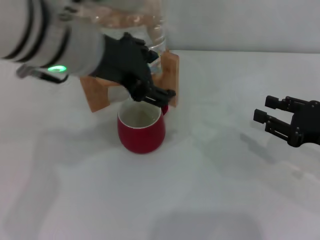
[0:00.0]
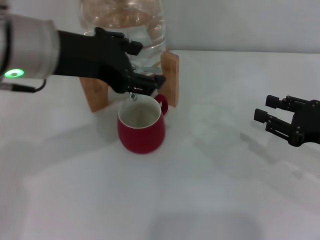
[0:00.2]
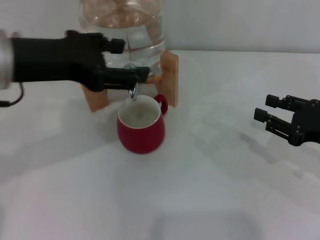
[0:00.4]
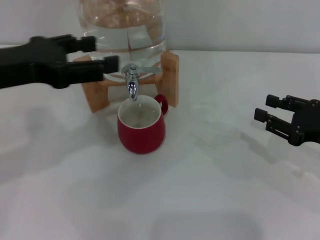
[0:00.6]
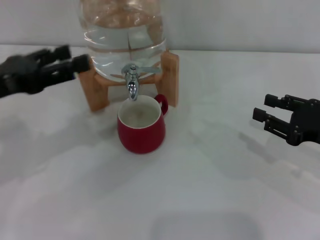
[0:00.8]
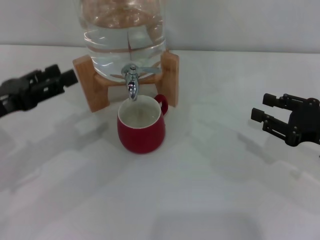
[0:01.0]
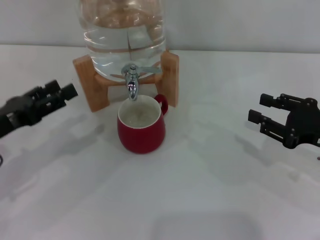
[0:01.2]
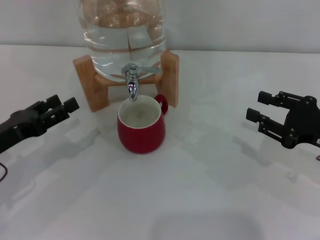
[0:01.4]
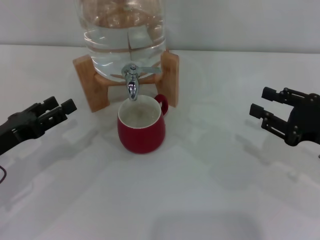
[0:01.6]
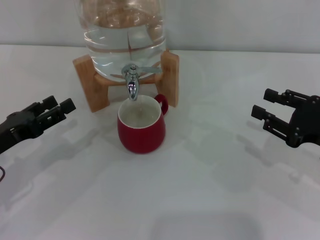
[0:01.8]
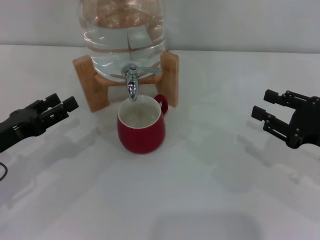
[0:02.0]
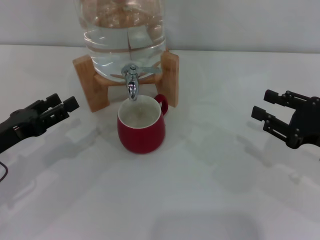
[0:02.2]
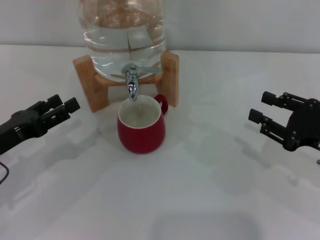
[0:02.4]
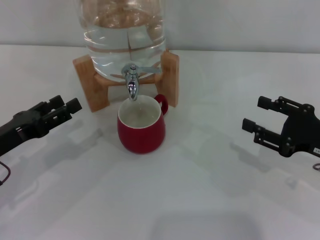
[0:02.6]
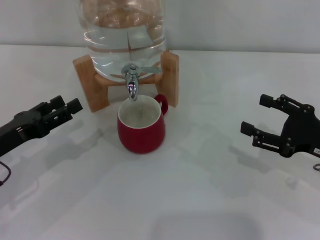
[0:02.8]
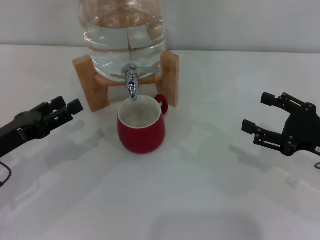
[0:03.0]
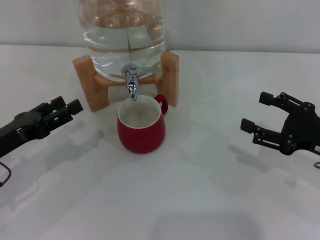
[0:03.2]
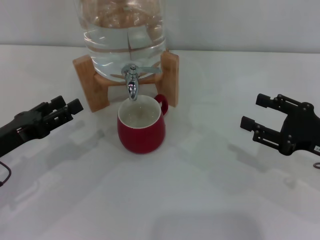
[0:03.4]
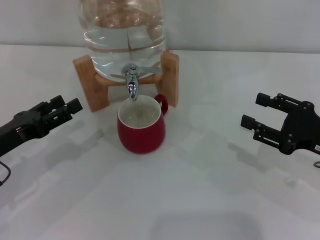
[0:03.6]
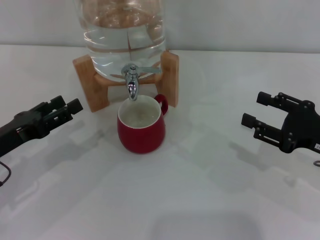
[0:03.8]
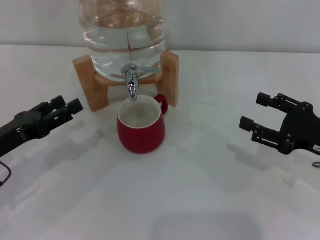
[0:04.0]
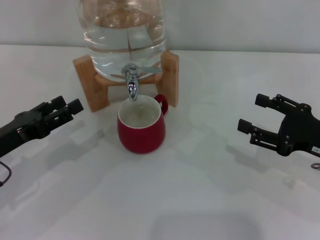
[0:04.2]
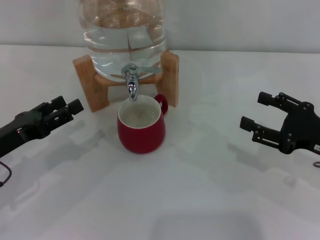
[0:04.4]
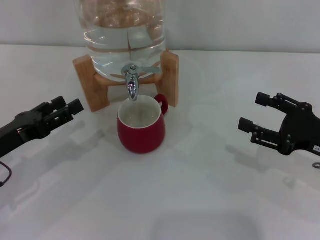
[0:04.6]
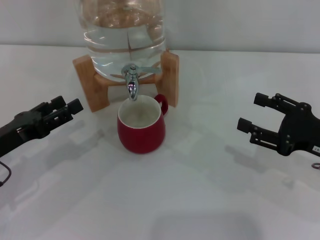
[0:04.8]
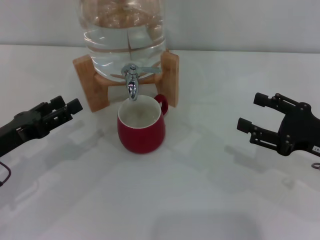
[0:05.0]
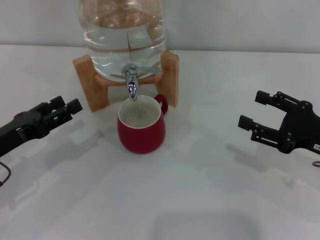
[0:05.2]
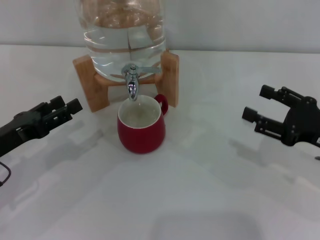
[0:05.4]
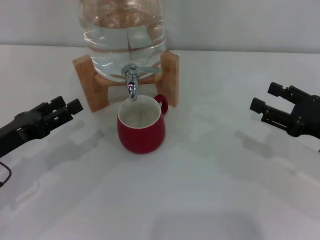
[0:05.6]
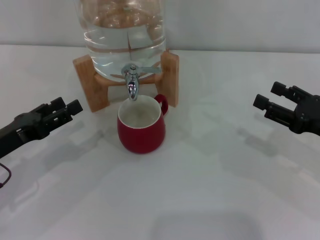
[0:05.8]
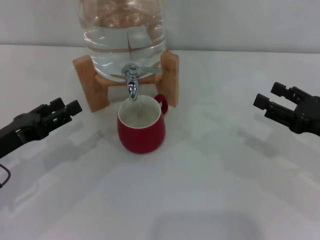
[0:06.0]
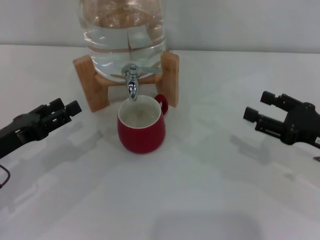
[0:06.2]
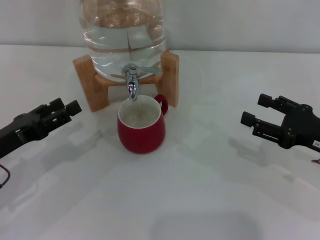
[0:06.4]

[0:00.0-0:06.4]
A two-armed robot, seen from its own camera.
Task of the whole recording: the right gripper pick up the red cup and place it horizontally under the faucet, the left gripper turn on the faucet to fill the cup, and then turn off the faucet.
0:00.0 to 0:01.6: The left gripper shifts approximately 25 cm downward and to the left.
0:01.6 to 0:03.2: The right gripper opens.
0:03.2 to 0:04.8: Neither gripper changes place.
0:04.8 to 0:06.4: The grippers move only a little.
